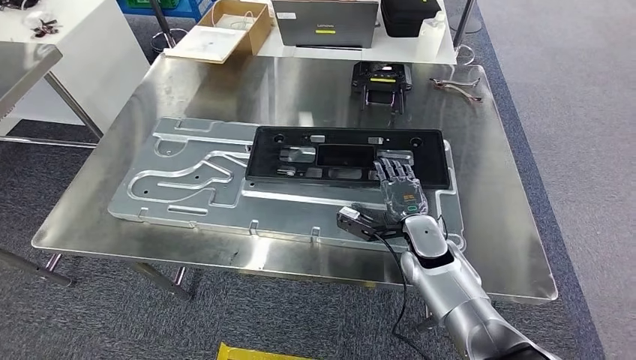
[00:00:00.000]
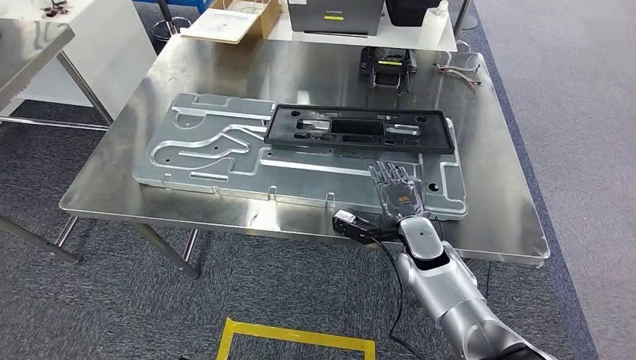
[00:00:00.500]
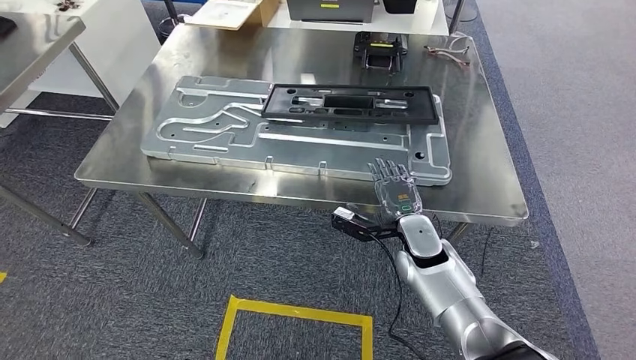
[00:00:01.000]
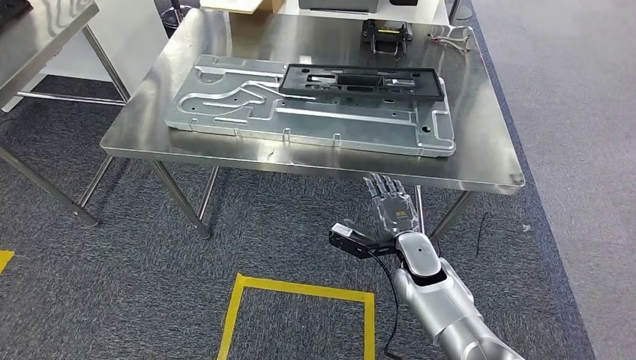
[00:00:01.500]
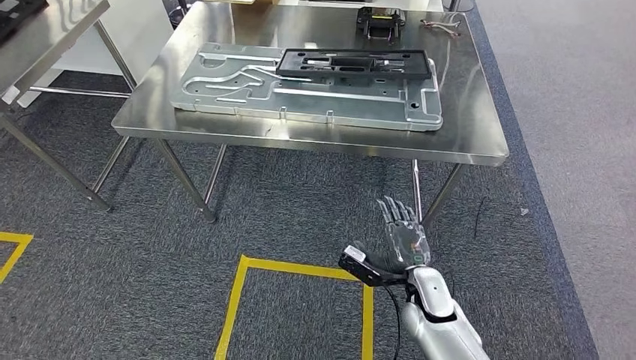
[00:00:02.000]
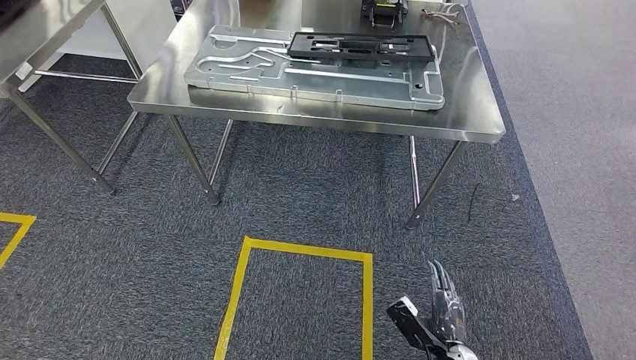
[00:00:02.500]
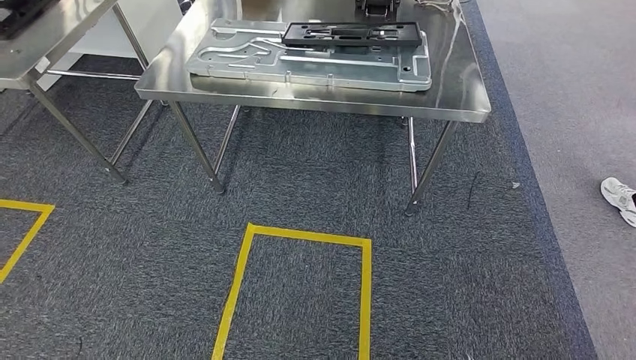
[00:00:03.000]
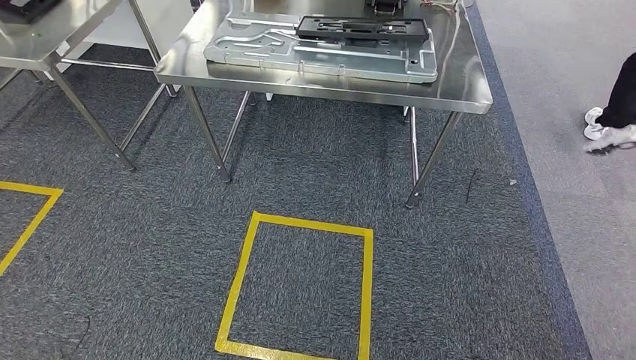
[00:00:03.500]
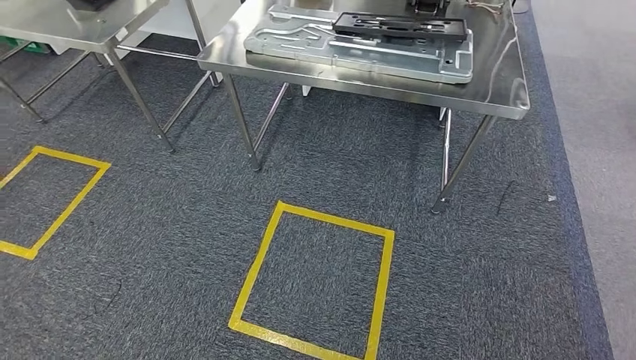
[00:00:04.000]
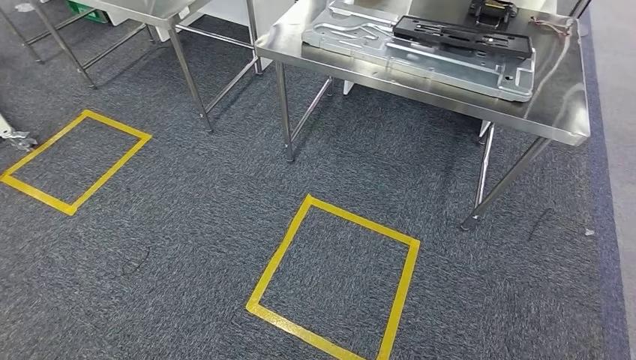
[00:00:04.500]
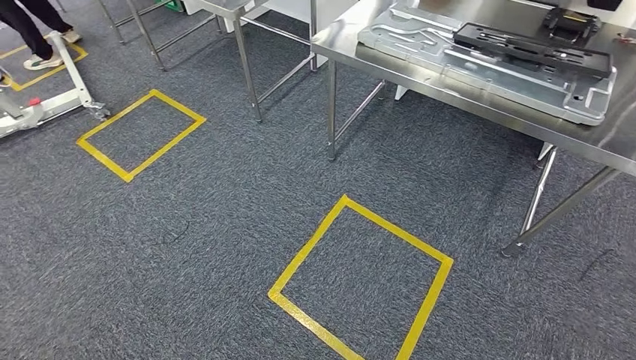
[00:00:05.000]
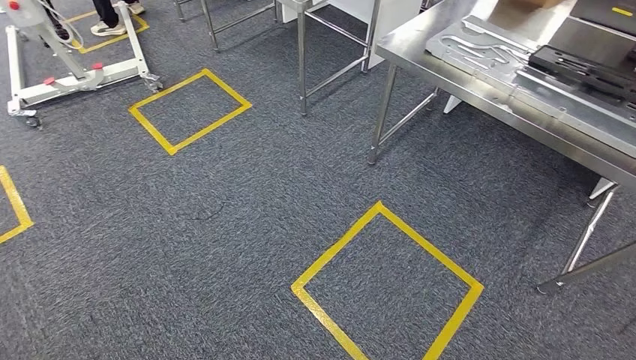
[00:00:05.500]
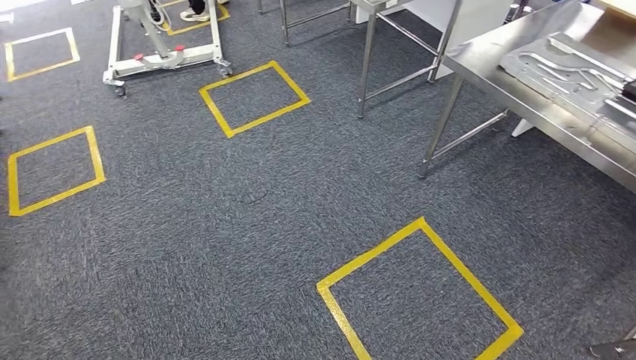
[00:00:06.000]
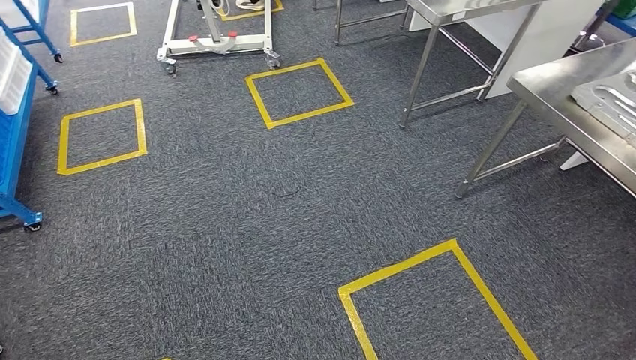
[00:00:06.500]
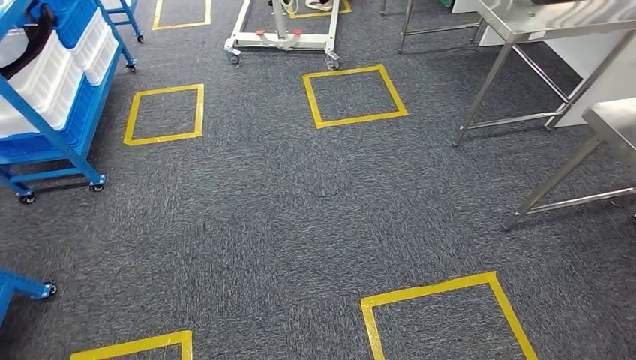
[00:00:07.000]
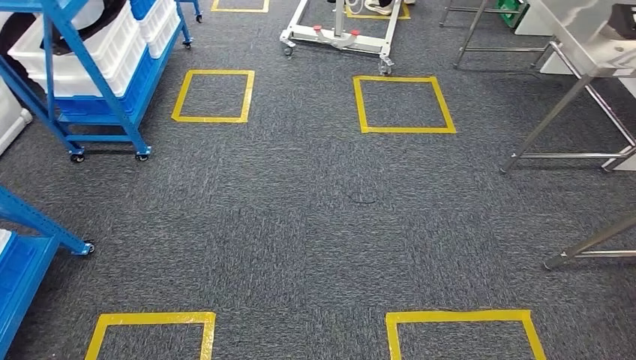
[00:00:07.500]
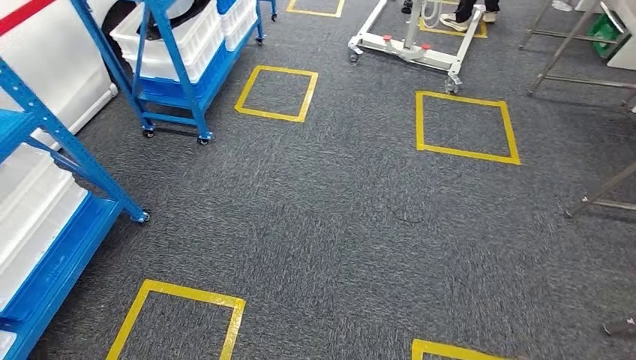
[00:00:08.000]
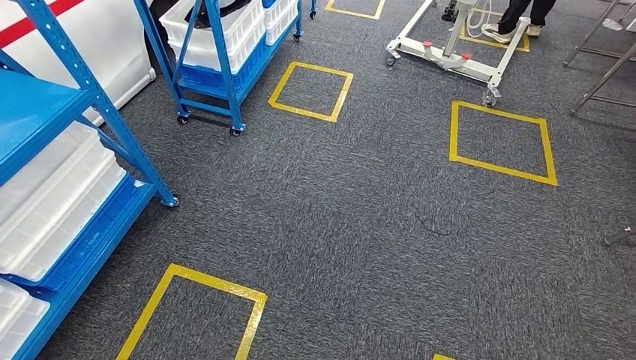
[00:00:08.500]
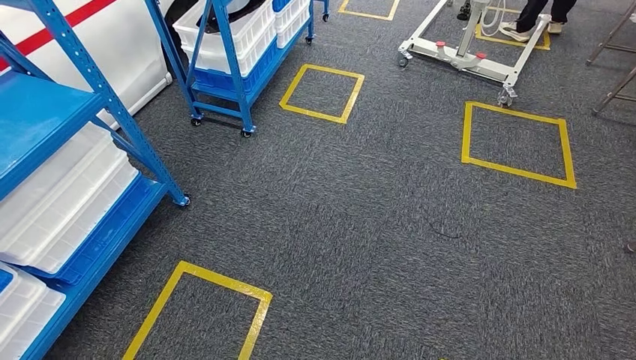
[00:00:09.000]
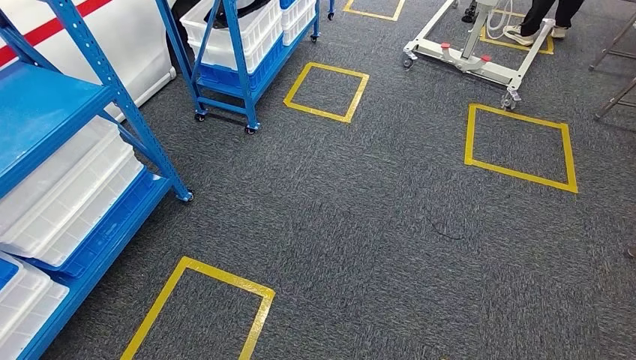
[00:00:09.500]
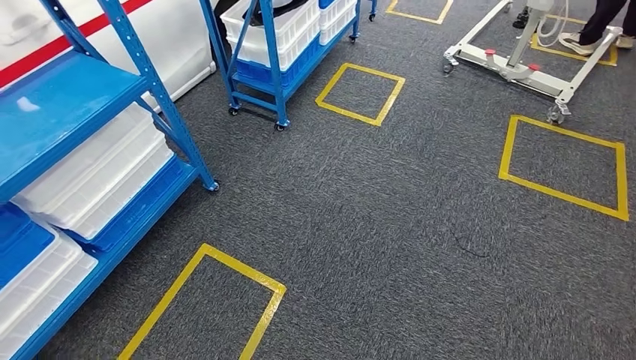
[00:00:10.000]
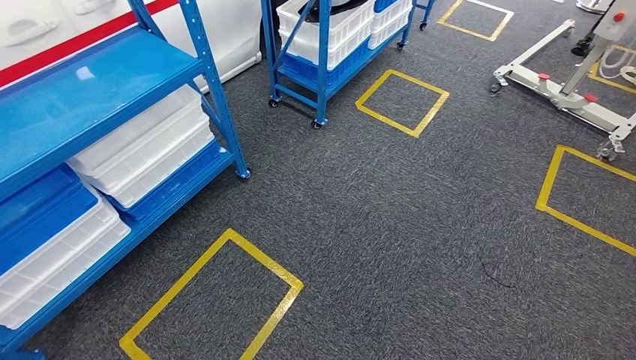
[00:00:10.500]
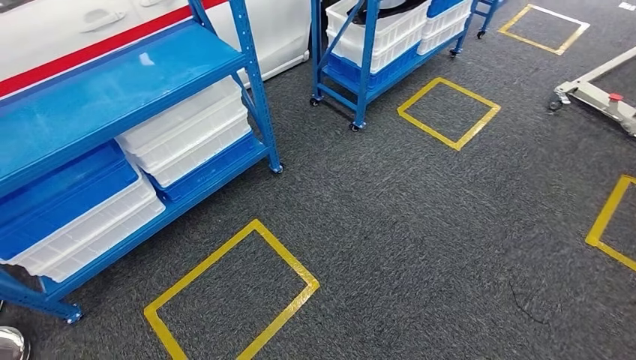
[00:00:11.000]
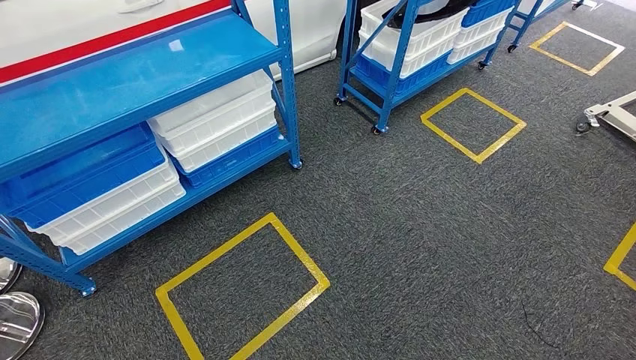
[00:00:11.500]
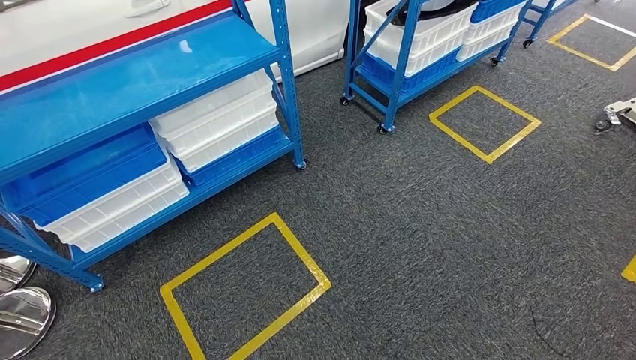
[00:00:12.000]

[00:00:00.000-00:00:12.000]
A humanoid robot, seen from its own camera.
Step, 00:00:00.000 to 00:00:02.500: Insert the large material into the corresponding slot on the workbench.

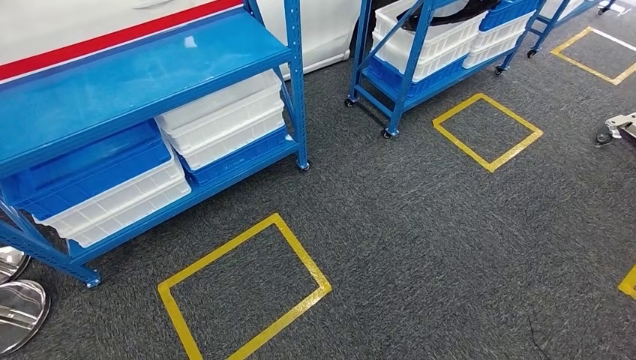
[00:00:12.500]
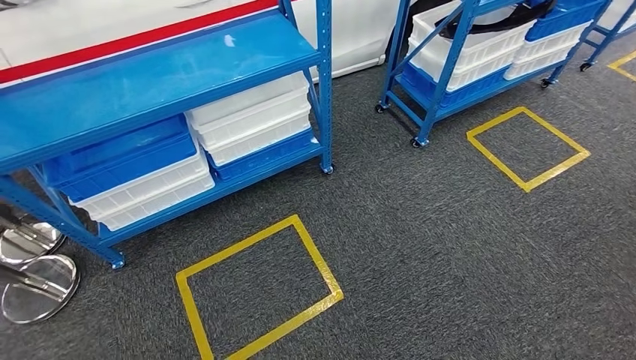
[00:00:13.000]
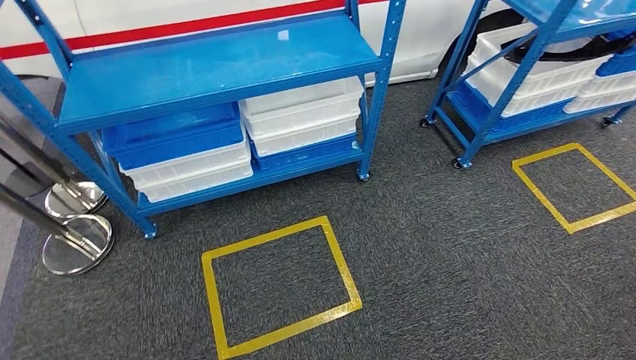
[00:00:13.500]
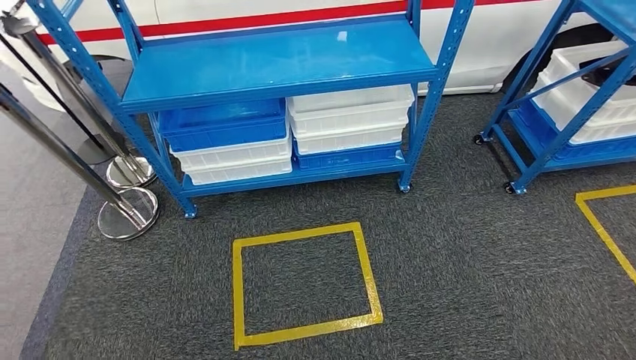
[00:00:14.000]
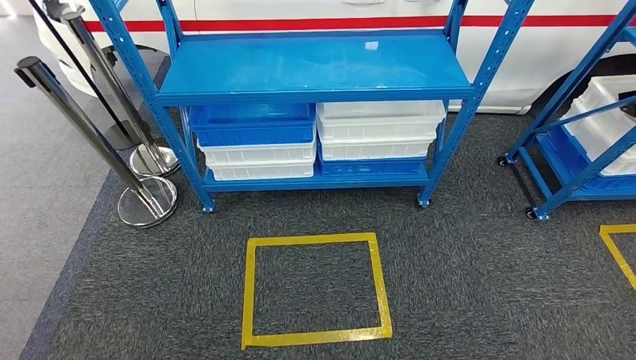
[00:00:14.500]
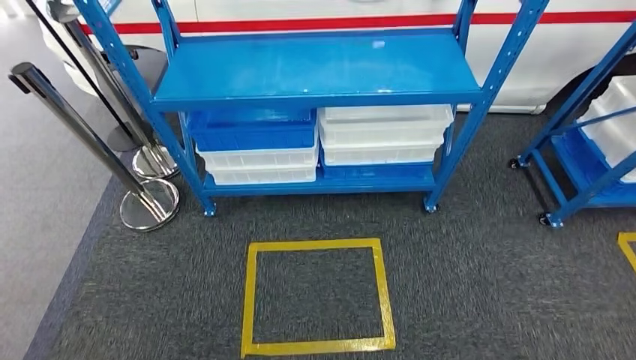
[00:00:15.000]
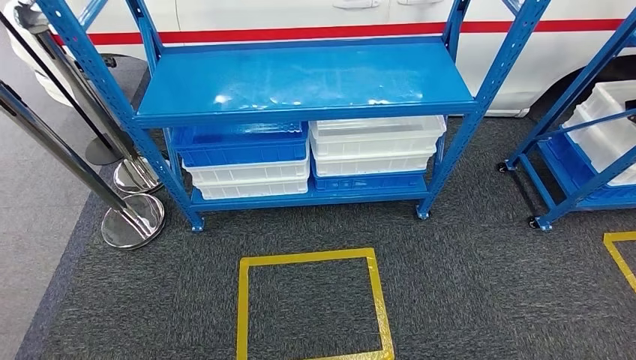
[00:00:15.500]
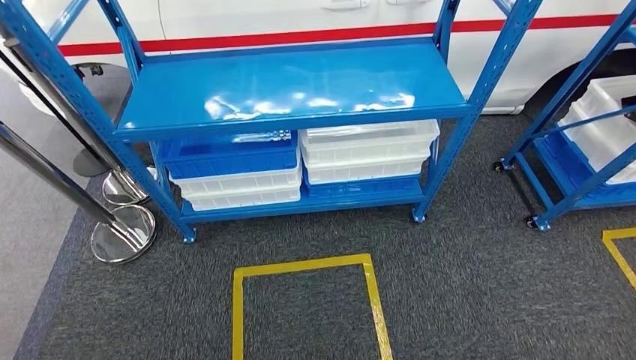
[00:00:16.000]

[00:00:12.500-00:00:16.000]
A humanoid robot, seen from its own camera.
Step, 00:00:12.500 to 00:00:16.000: Move to the initial position of the shelf.

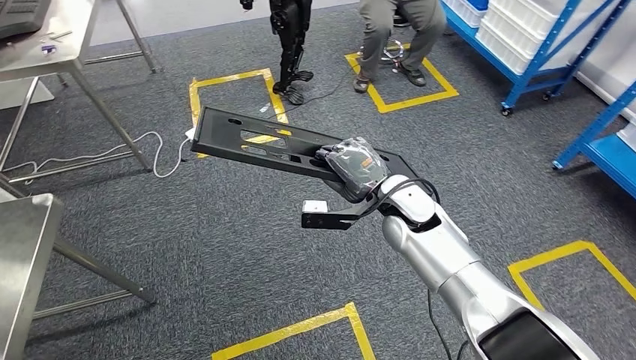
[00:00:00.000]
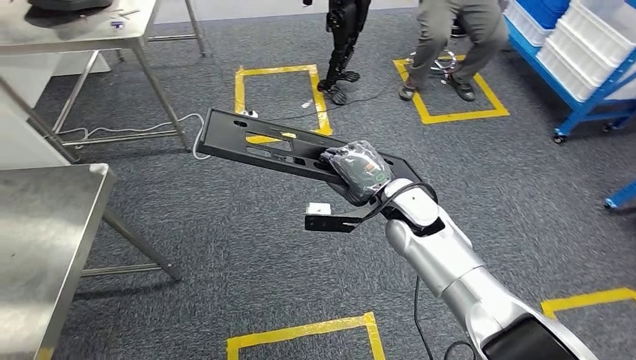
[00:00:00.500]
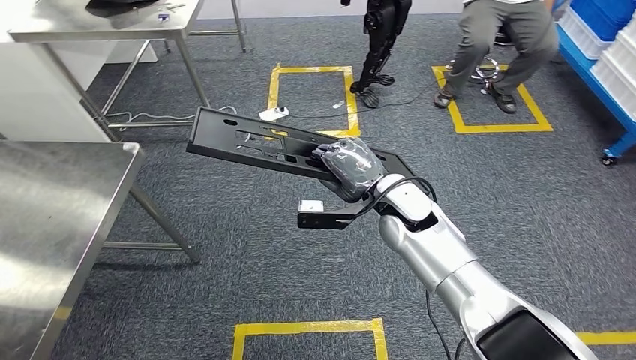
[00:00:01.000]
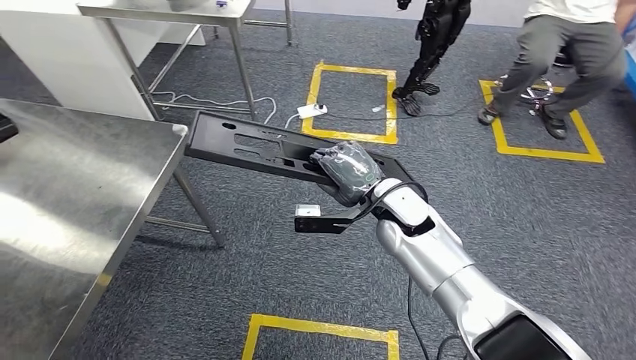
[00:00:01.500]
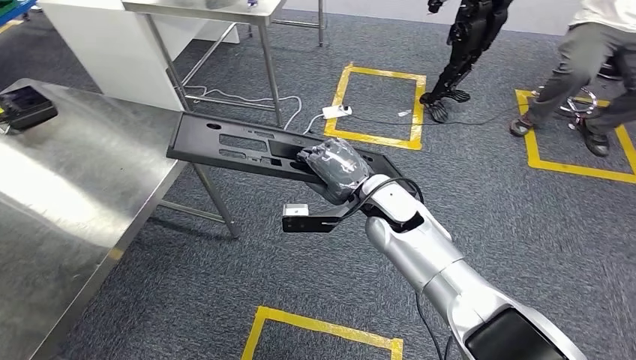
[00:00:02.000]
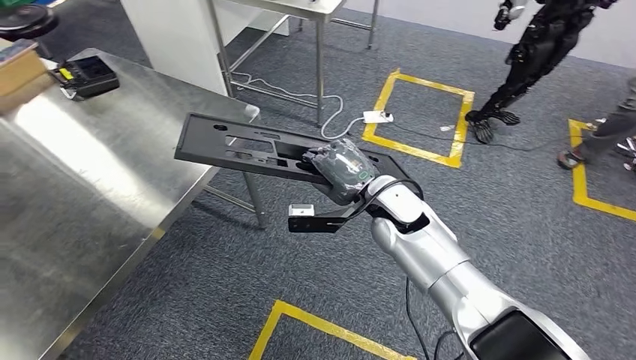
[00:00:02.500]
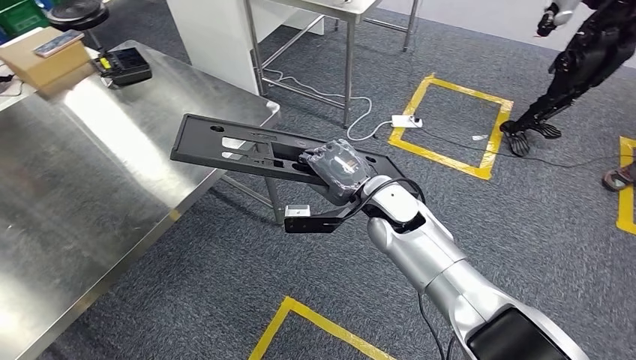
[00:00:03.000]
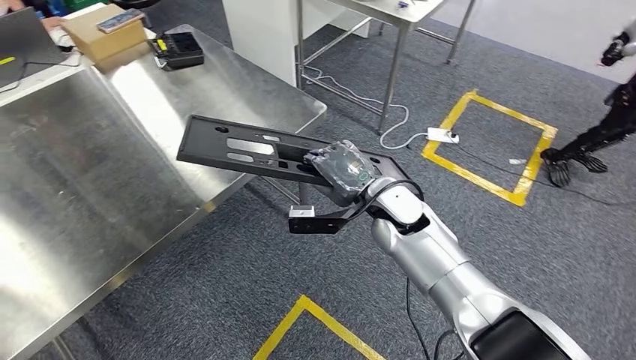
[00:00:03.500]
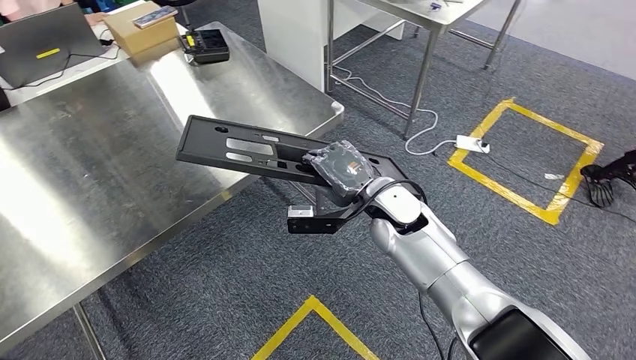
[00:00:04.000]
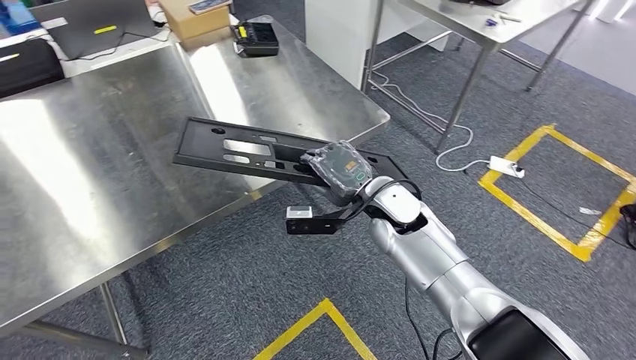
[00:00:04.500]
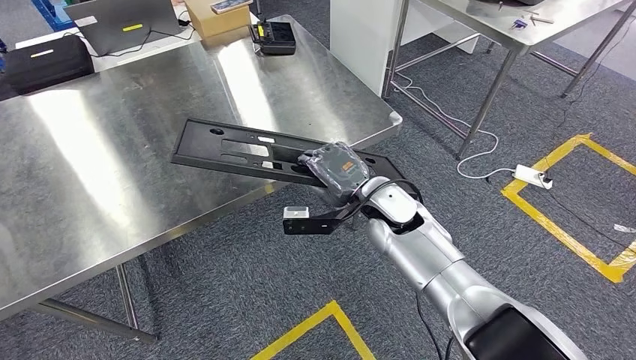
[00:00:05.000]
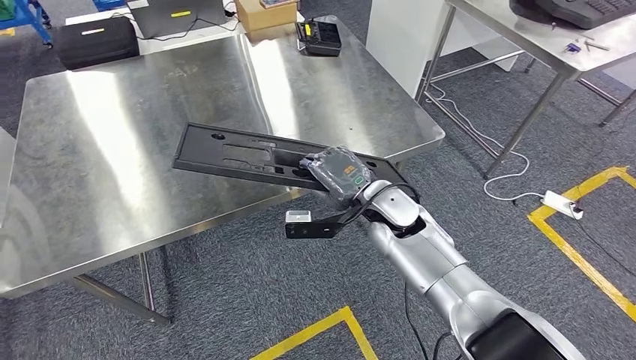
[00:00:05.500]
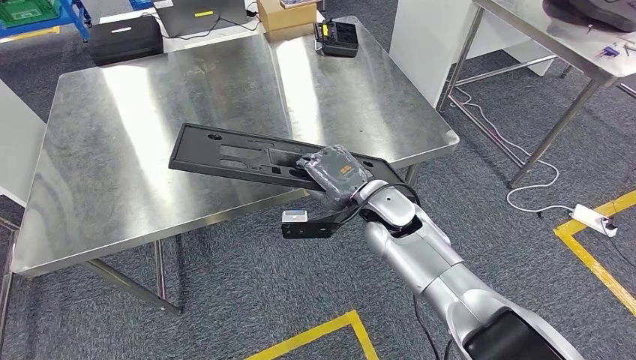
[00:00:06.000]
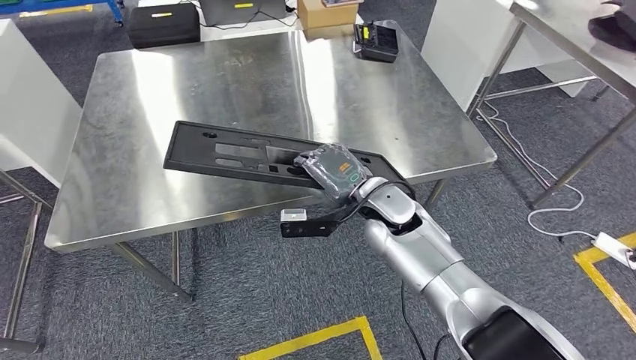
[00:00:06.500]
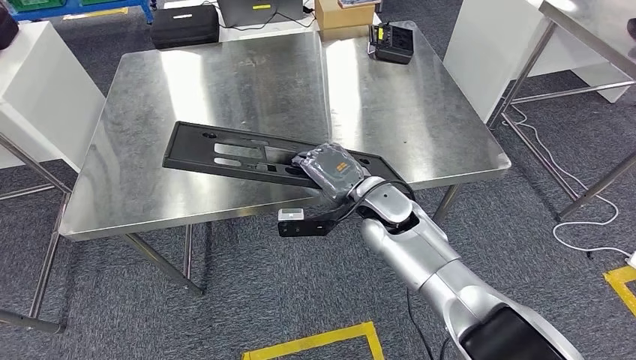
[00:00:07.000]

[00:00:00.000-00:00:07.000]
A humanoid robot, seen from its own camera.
Step, 00:00:00.000 to 00:00:05.000: Move the large material to the workbench.
